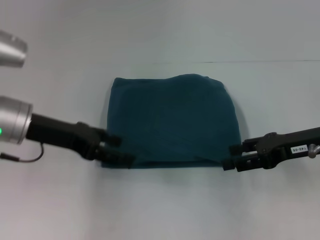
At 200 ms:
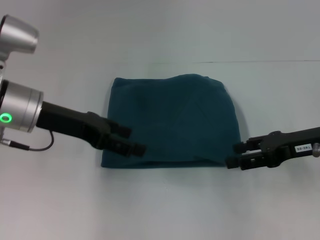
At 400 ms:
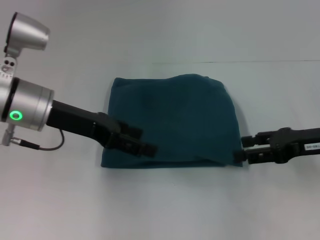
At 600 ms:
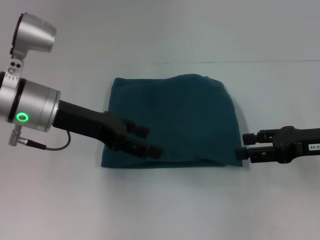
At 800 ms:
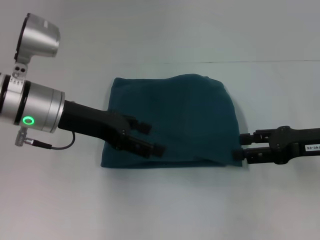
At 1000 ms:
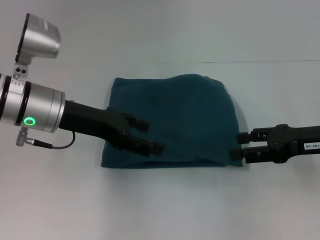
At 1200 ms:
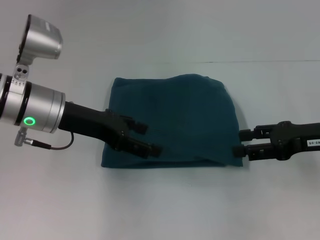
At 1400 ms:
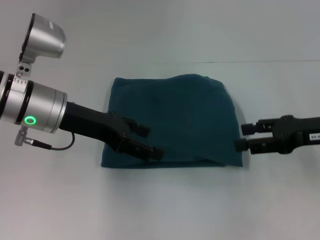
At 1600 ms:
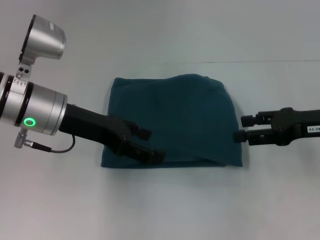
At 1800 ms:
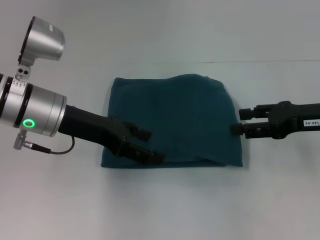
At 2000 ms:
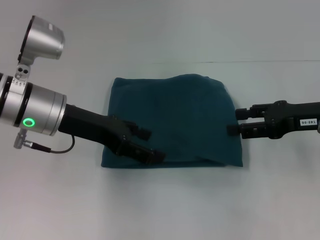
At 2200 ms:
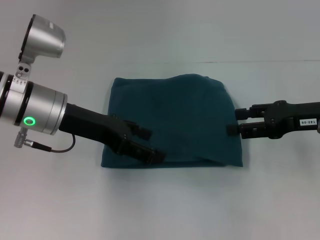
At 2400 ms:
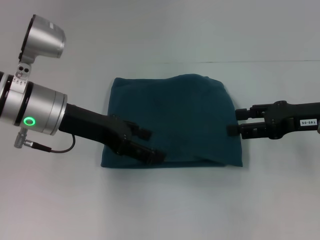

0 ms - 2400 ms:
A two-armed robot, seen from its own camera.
0 ms - 2400 ms: The grippers stay close to where they were, moving slightly.

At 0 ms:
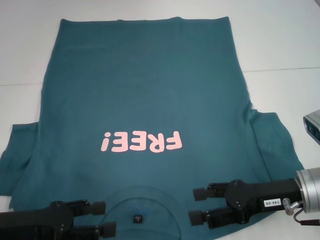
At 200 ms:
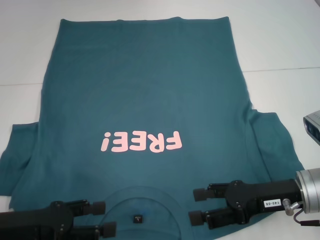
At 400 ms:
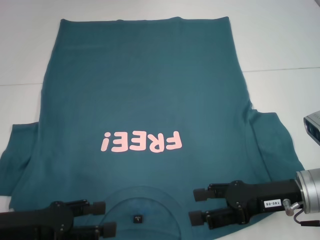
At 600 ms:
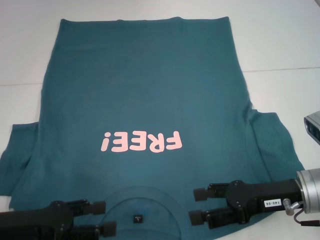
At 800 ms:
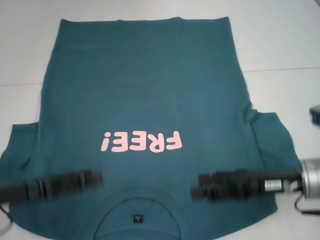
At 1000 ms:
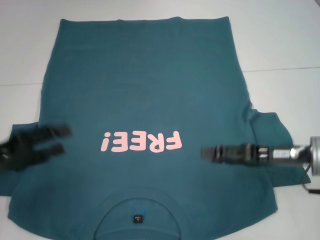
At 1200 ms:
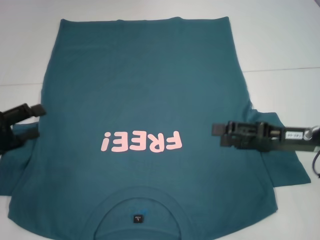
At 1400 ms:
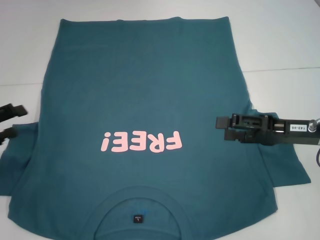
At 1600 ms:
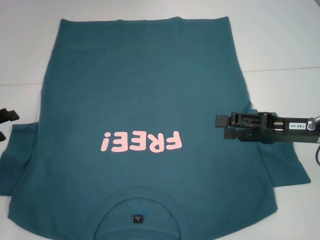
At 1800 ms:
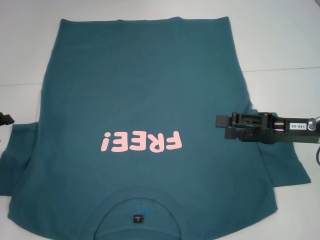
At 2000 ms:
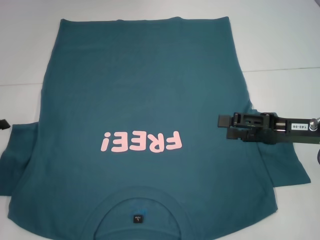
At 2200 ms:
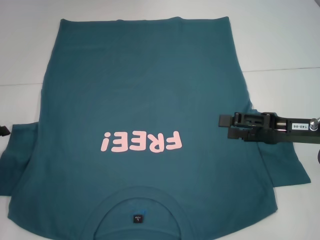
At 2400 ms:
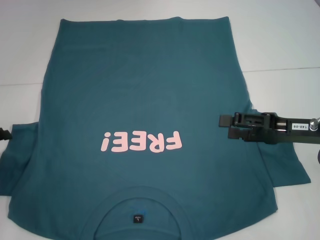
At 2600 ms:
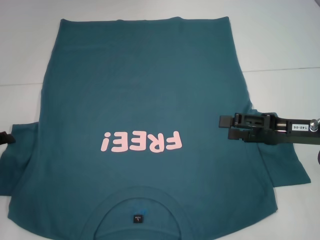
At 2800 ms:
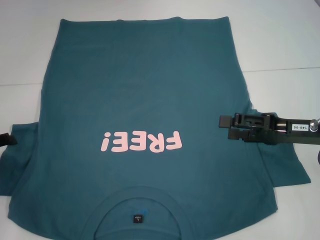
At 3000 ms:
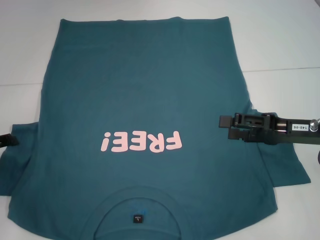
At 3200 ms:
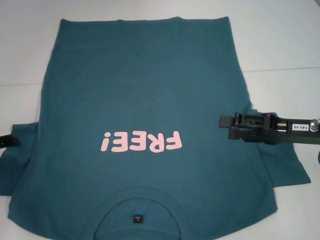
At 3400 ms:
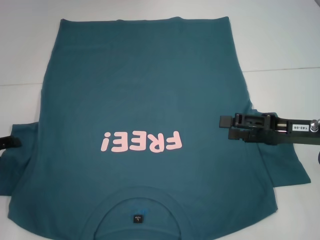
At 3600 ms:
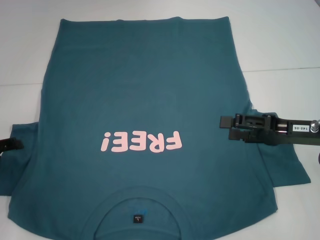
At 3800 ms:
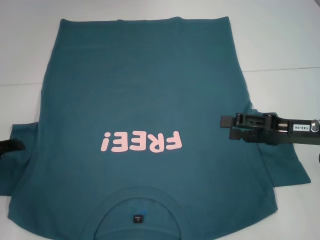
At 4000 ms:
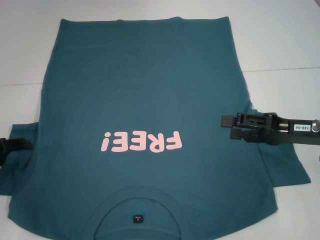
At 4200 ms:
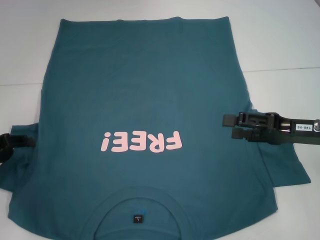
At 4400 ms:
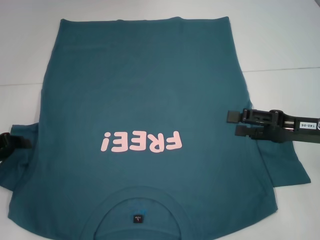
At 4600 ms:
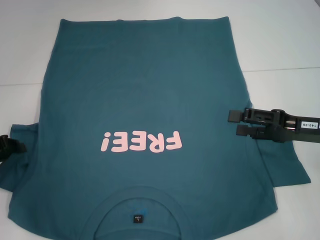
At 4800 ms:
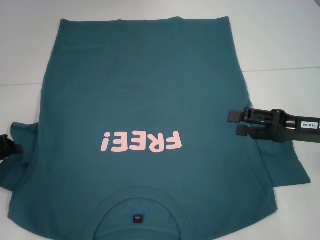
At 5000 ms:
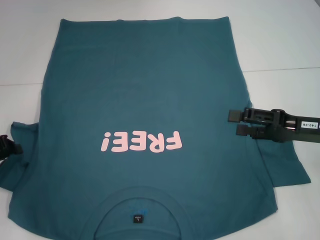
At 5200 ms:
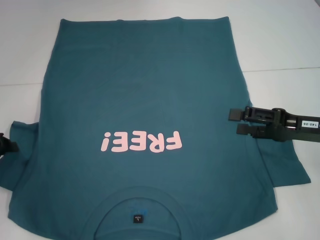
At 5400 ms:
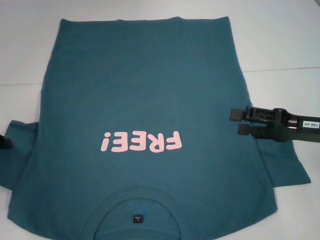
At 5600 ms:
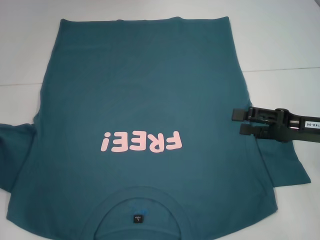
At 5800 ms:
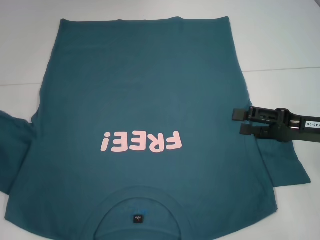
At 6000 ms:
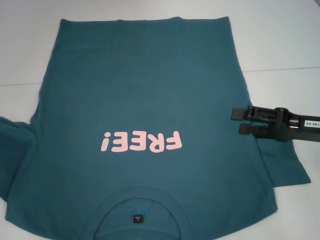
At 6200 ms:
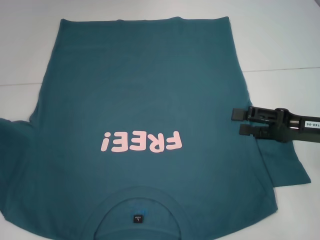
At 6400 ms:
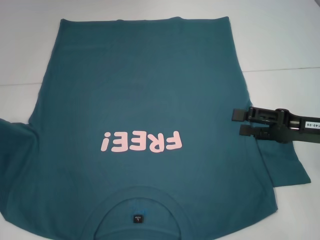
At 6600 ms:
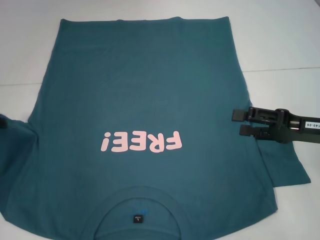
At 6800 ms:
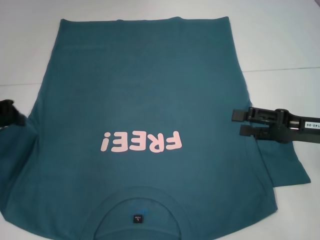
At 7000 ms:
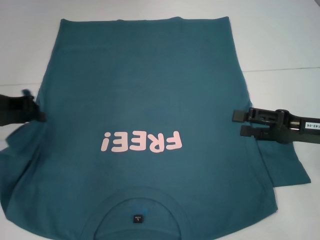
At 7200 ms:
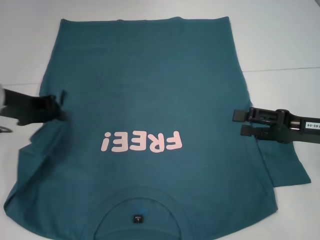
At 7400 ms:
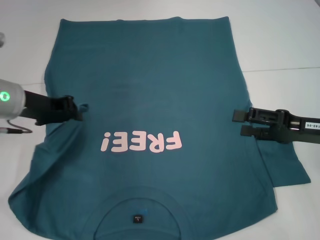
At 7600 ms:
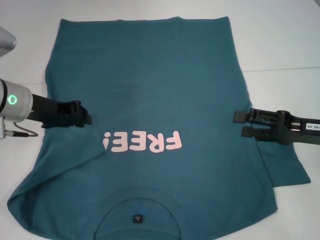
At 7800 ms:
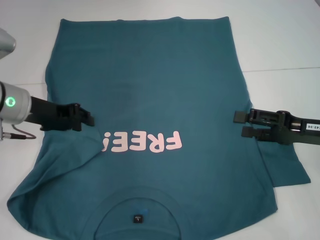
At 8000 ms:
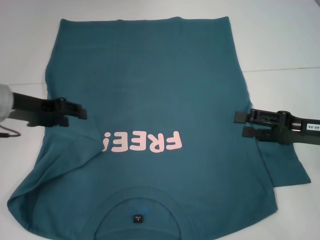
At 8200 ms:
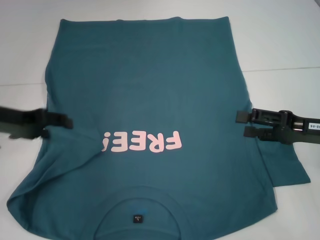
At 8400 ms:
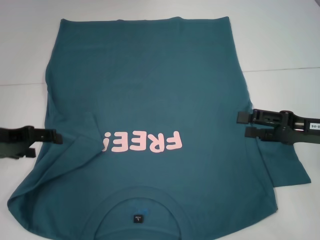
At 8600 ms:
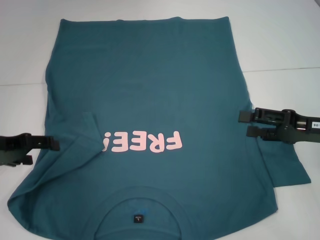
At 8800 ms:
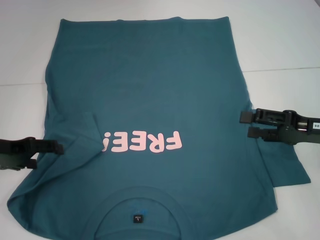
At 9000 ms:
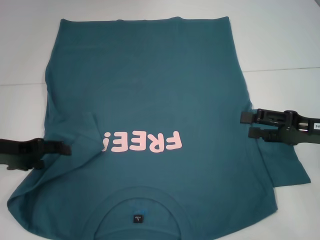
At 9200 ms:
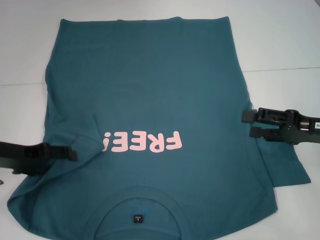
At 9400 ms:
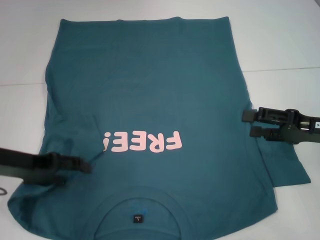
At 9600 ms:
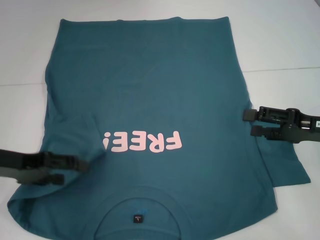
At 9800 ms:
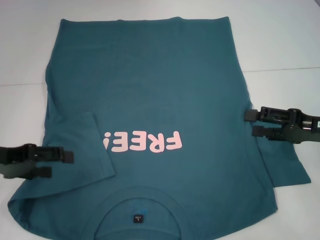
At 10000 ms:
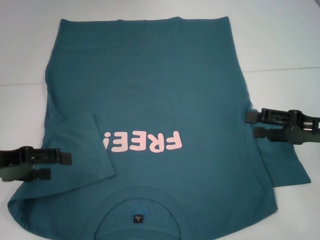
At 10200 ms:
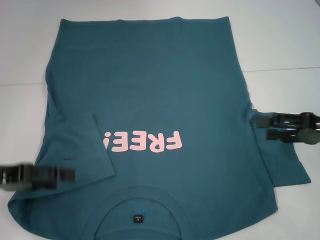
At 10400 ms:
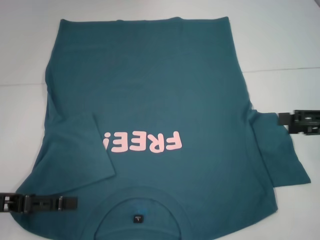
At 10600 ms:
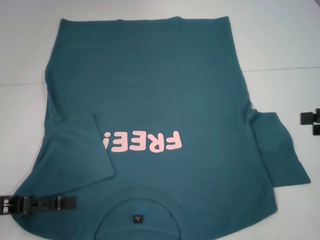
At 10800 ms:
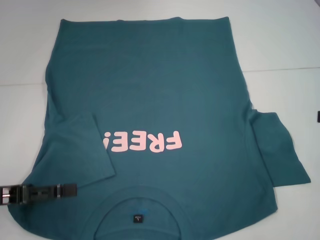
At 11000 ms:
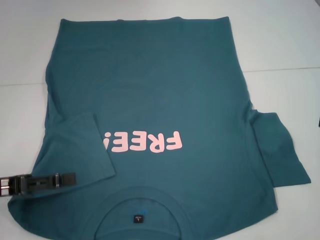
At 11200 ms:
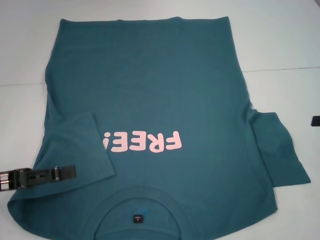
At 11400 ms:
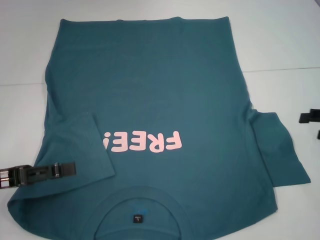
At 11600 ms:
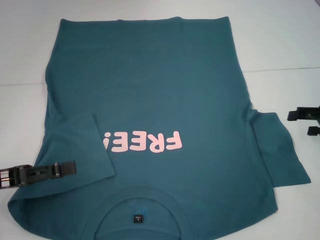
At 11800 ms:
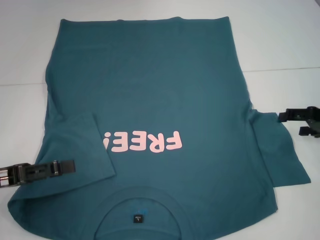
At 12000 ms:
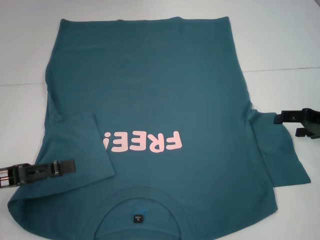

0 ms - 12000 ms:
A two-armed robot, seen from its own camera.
Step, 0 ms - 9600 ms: Fold the bottom left sleeve with your left hand.
0 ms - 1600 ms: The right gripper moves roughly 10 cm; the left gripper goes approximately 15 cm to the left and forward.
1600 ms - 4400 ms: There are only small adjustments of the grippers.
4400 ms - 6000 ms: The left gripper moves some 5 cm, and closes up.
6000 ms - 7600 ms: The left gripper heads to the right, covering about 15 cm.
7600 ms - 9000 ms: The left gripper shifts approximately 10 cm to the left and backward, and opens up.
9000 ms - 10400 ms: The right gripper shifts by some 5 cm. Meanwhile the left gripper shifts approximately 10 cm backward.
10400 ms - 12000 ms: The right gripper changes place by about 5 cm.

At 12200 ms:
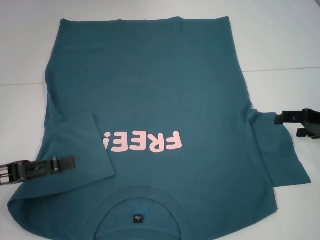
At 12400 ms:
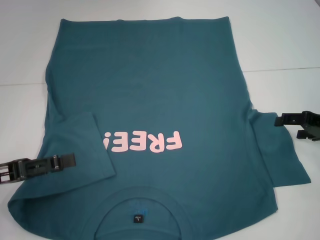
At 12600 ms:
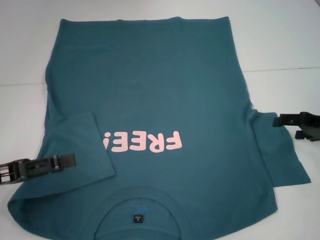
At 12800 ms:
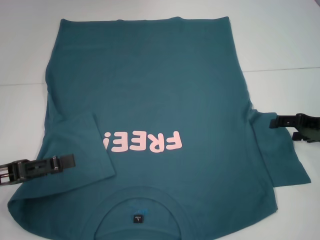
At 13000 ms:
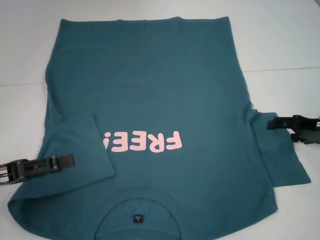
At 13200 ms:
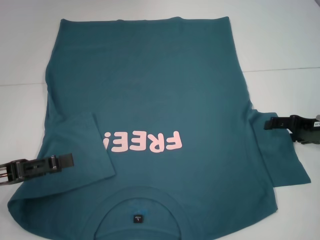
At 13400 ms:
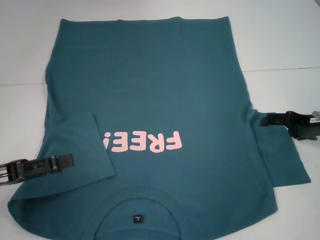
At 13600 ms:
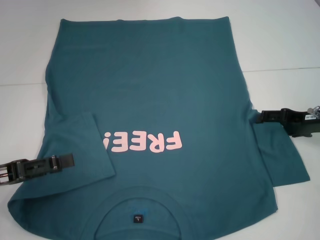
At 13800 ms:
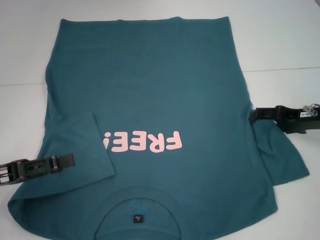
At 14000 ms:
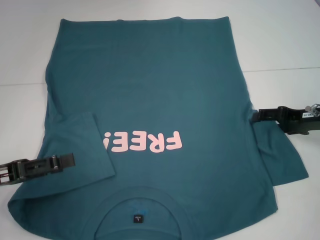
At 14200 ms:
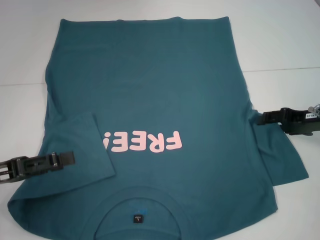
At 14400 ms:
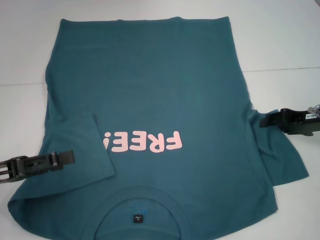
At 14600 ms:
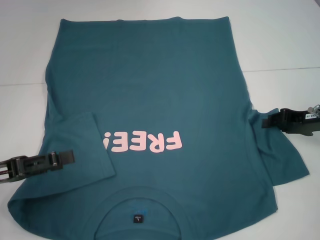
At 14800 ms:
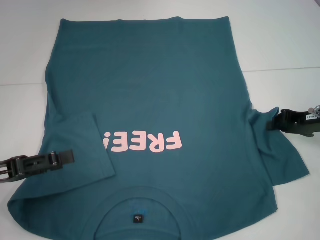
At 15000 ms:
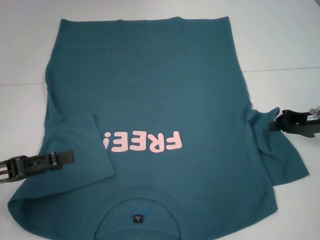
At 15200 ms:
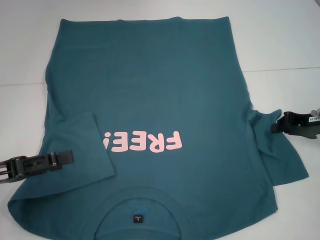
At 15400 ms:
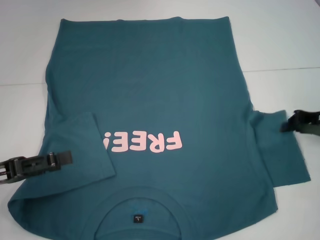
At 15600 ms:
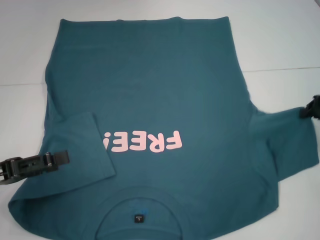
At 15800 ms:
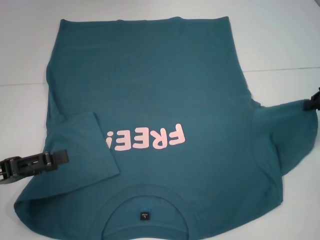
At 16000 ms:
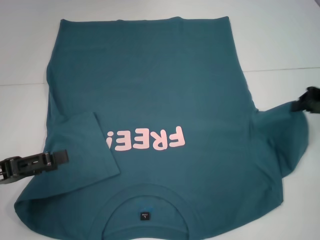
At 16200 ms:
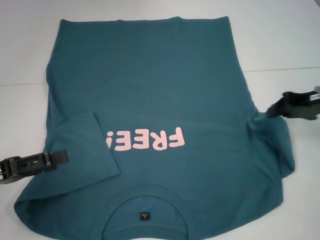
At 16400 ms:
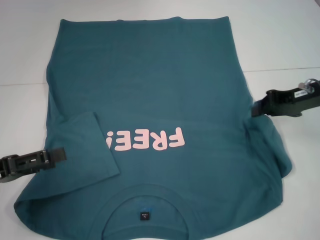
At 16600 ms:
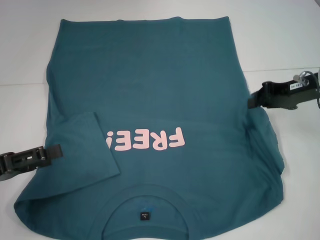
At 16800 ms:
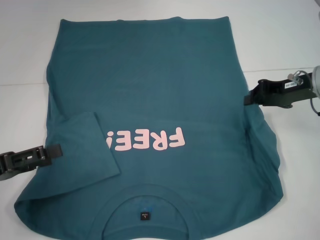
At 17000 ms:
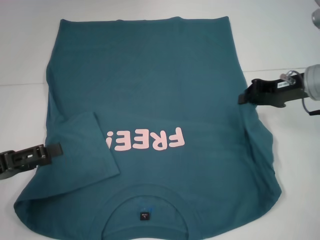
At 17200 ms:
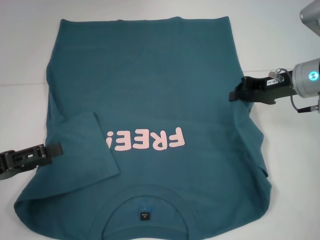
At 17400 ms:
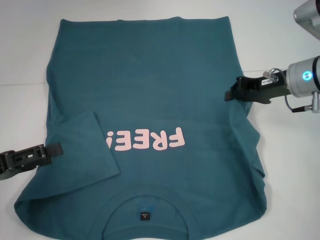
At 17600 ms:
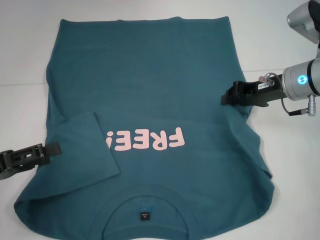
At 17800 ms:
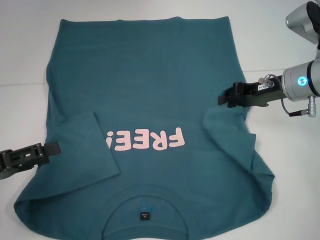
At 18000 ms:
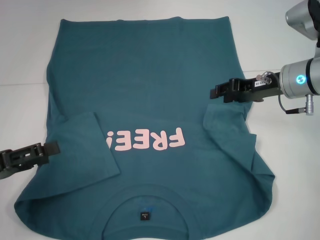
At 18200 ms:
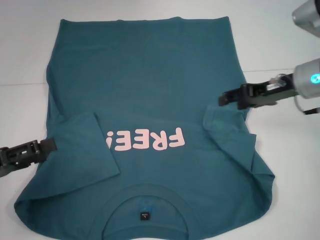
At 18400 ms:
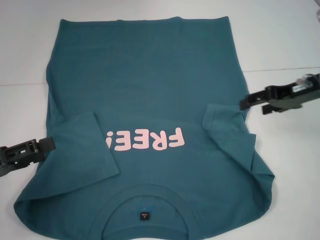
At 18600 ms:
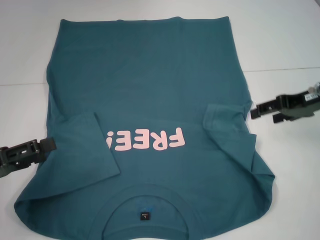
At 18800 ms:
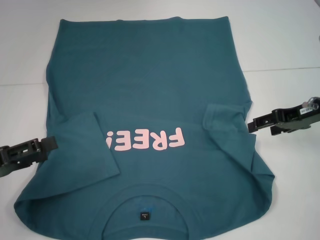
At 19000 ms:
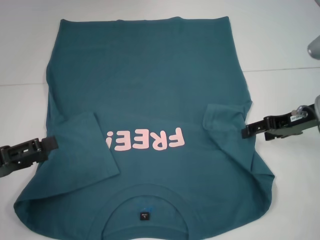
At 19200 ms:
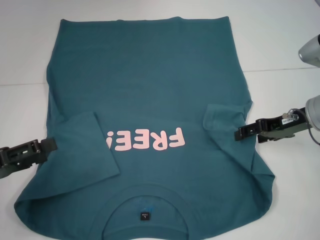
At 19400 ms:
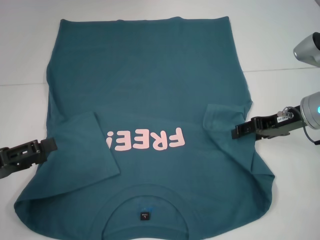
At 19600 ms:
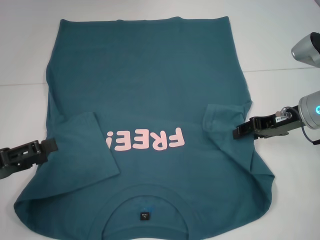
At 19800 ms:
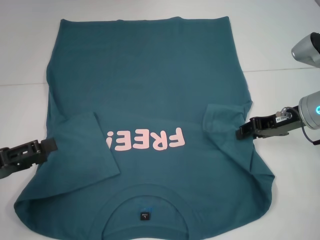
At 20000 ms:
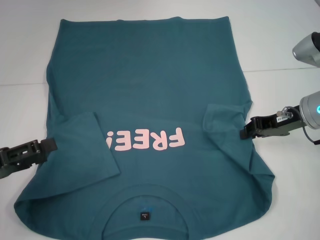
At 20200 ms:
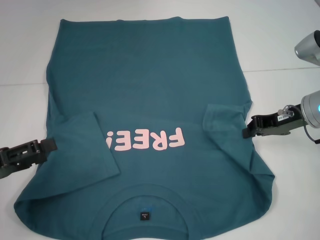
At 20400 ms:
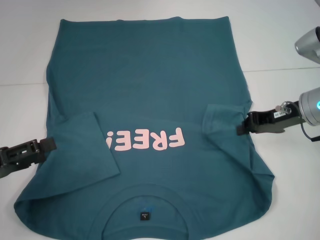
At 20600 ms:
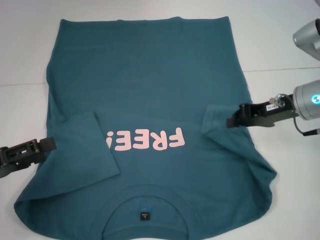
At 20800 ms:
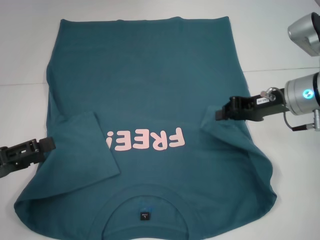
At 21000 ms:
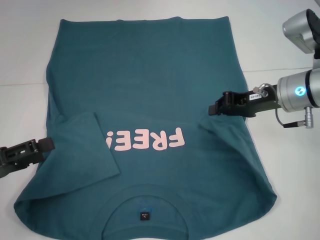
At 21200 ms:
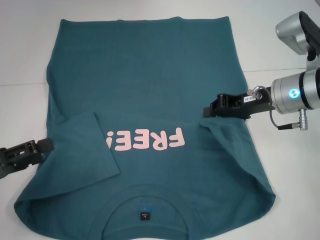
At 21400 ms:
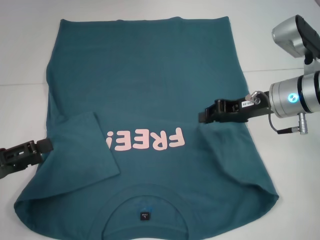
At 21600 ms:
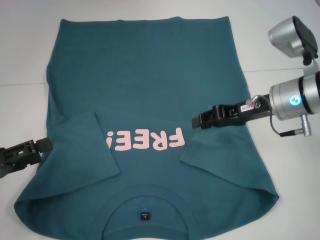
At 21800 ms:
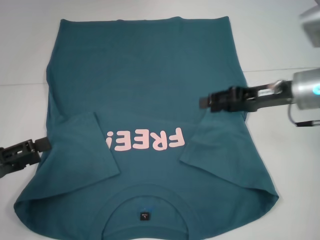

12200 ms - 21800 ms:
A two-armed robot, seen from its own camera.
Step, 12200 ms - 21400 ms: Fold the bottom right sleeve to the right.
12200 ms - 13800 ms: The grippers stay close to where they were, moving slightly.
13800 ms - 15400 ms: The right gripper closes up.
15400 ms - 17000 ms: The right gripper travels to the left by approximately 5 cm.
17000 ms - 18600 ms: The right gripper opens up.
18600 ms - 20200 ms: The right gripper shifts by some 5 cm, and closes up.
